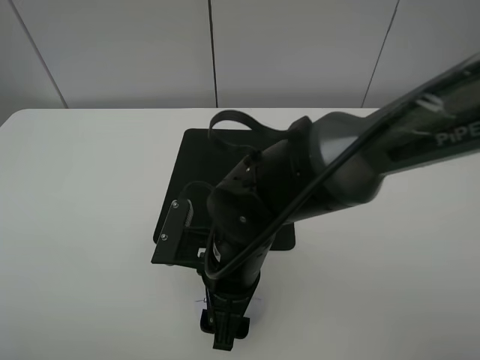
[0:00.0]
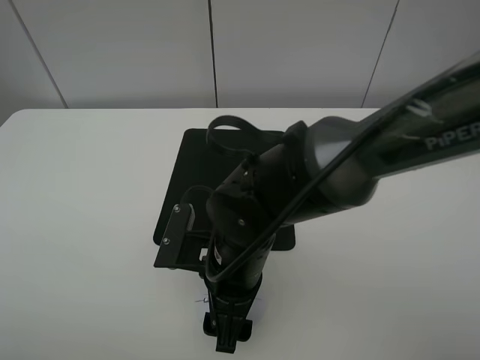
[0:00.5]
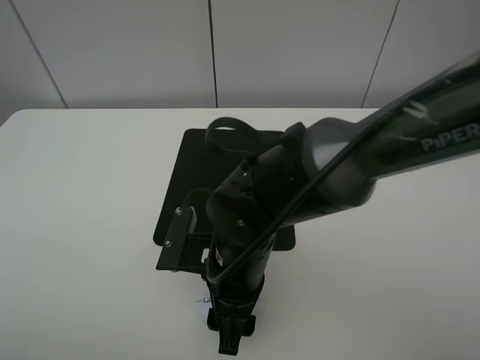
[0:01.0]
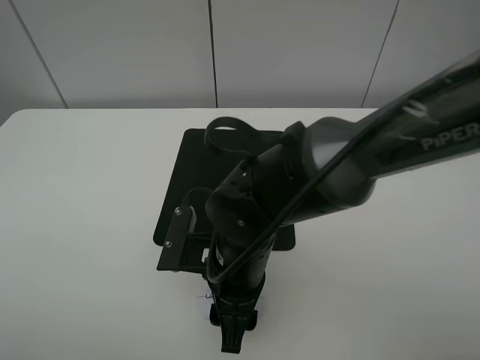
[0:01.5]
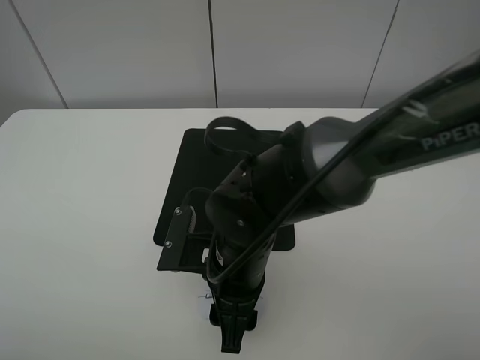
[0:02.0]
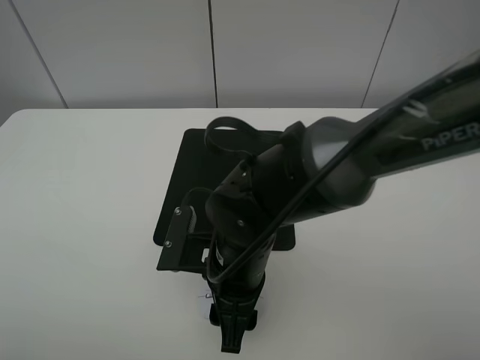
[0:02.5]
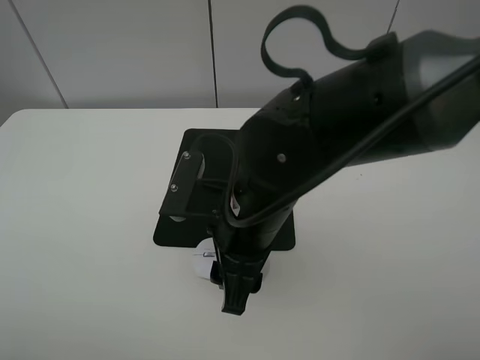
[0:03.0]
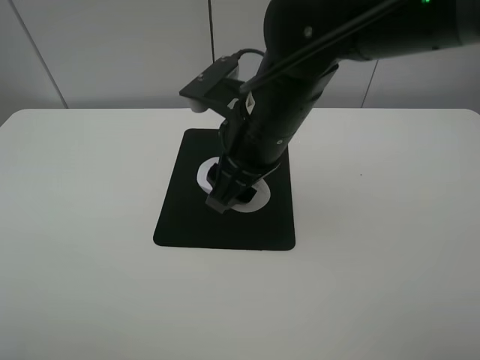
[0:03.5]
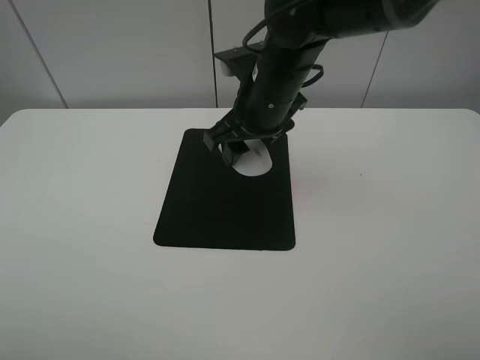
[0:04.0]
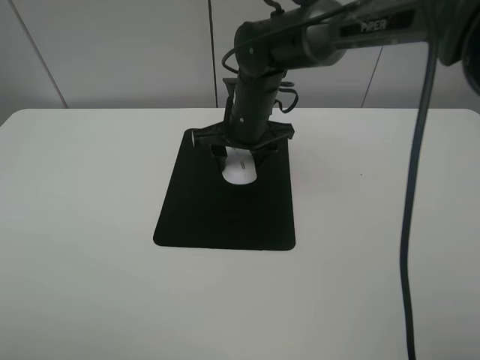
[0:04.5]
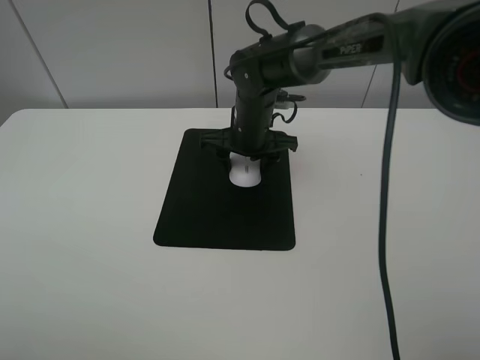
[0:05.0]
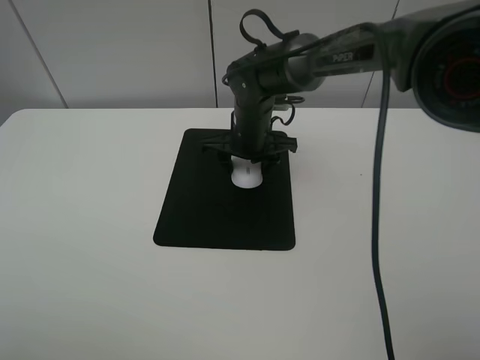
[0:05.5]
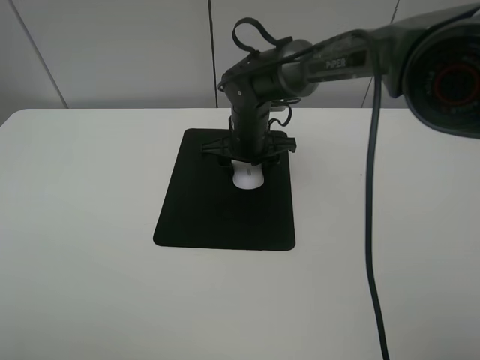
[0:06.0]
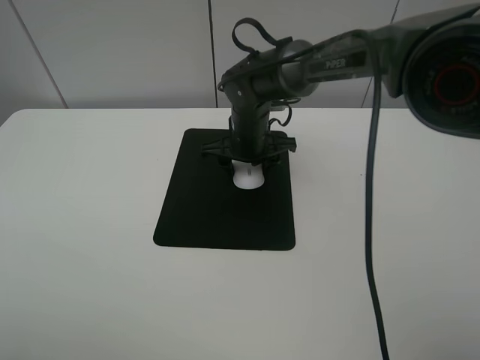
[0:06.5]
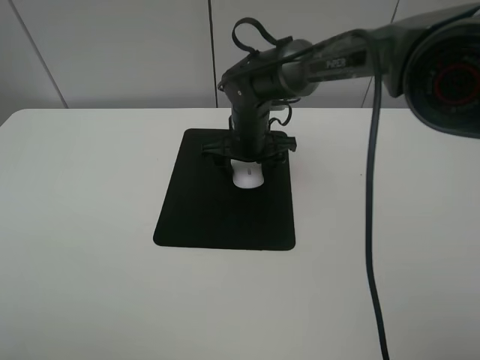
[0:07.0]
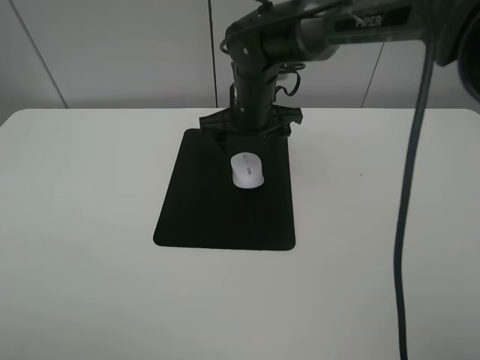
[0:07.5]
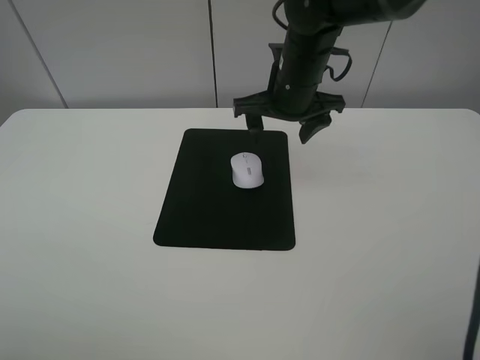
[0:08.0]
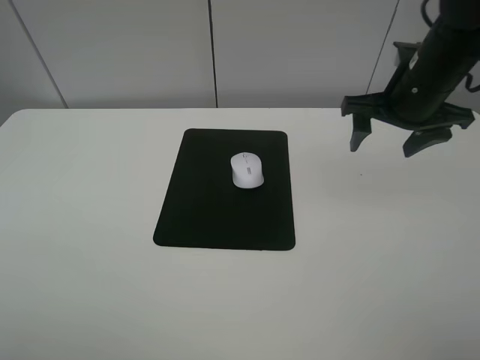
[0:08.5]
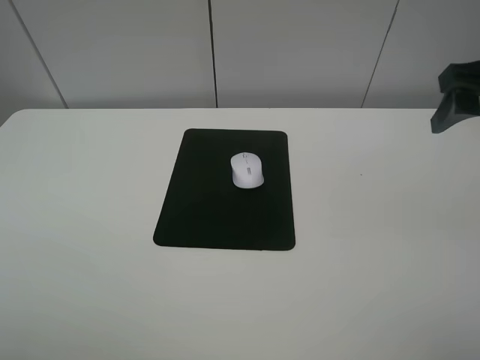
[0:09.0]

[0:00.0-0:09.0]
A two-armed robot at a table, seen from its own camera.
Step, 0:00.0 to 0:02.0: Grasp the mouse with the right gripper.
Step, 0:02.5 to 0:06.5: Place the mouse on the mouse mat with the right gripper.
0:00.0 to 0:02.0: The right gripper closes its fingers.
0:02.0 to 0:04.5: The right gripper moves forward, some 20 cm.
0:04.5 to 0:07.0: The right gripper opens up.
0:07.0 to 0:09.0: The right gripper heads to the right, upward and backward, covering approximately 35 cm.

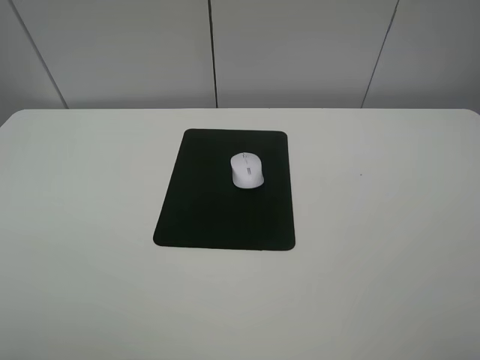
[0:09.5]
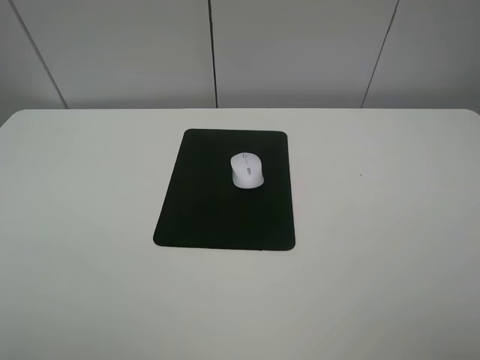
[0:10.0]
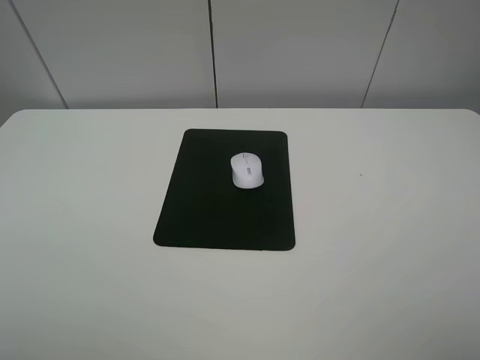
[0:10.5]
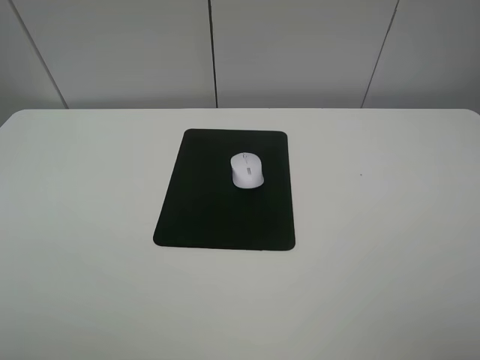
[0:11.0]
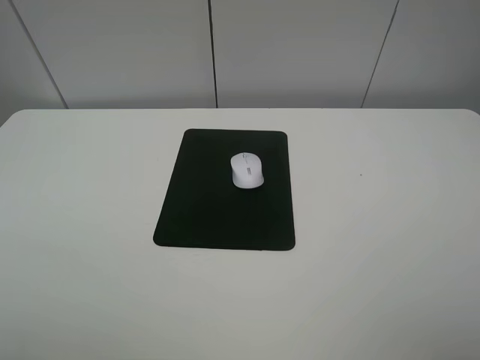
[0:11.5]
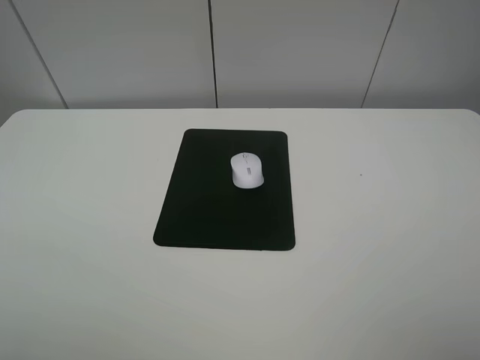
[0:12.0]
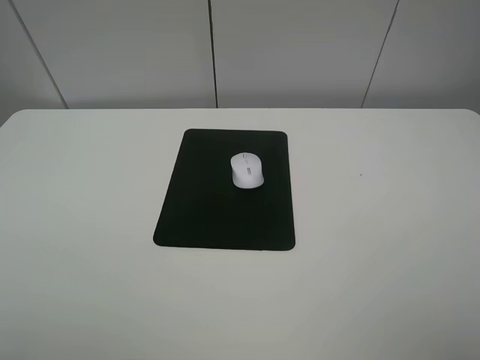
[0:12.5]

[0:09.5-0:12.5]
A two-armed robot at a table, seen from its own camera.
0:11.0 to 0:12.5: Neither gripper changes place.
